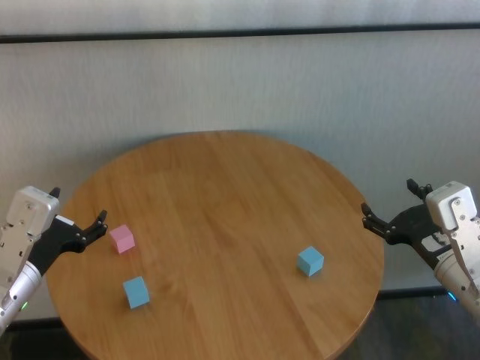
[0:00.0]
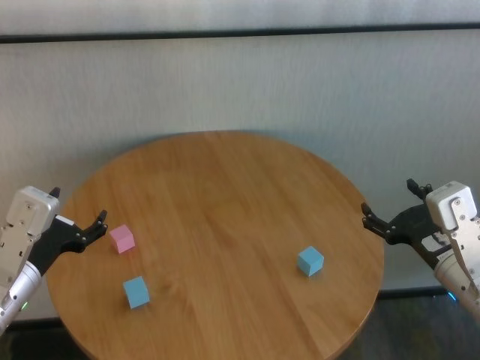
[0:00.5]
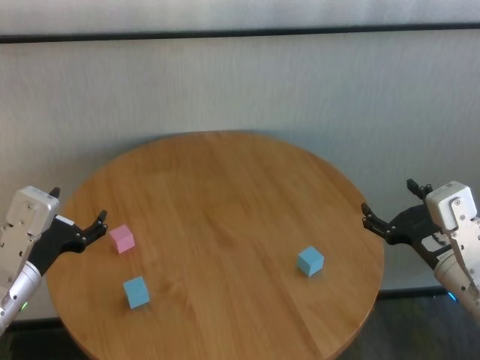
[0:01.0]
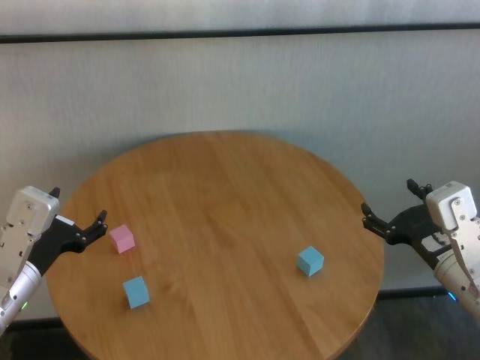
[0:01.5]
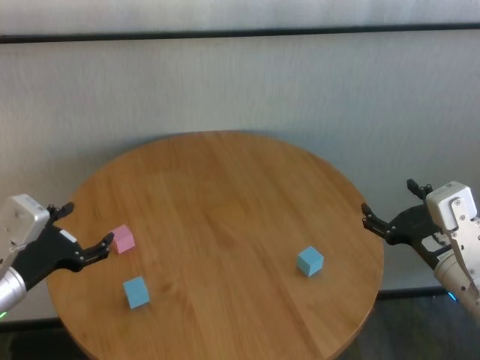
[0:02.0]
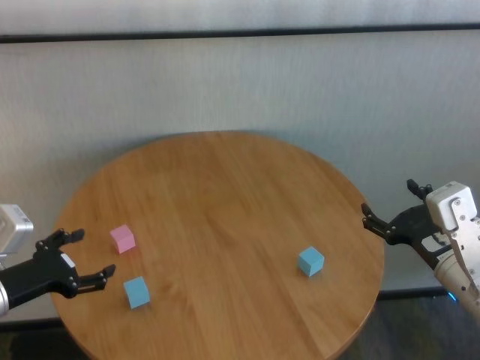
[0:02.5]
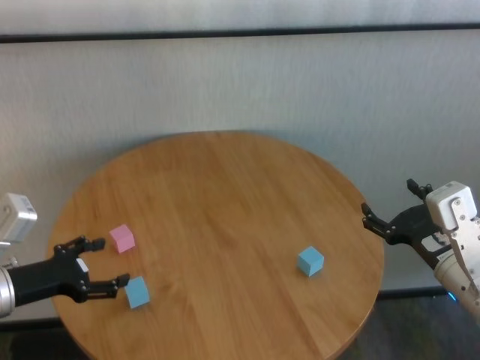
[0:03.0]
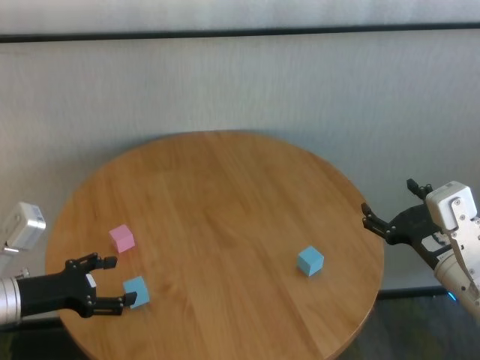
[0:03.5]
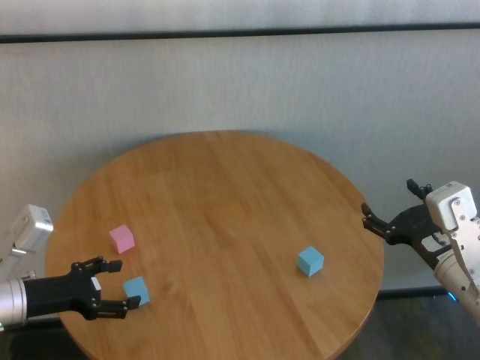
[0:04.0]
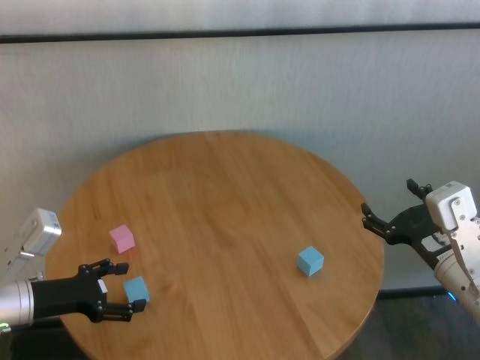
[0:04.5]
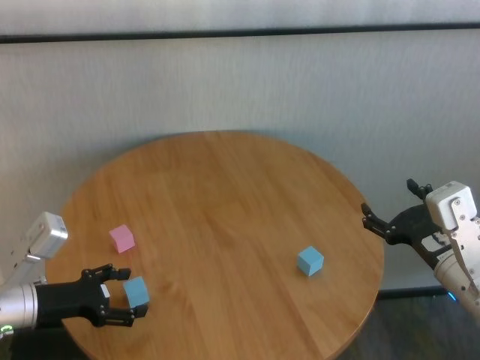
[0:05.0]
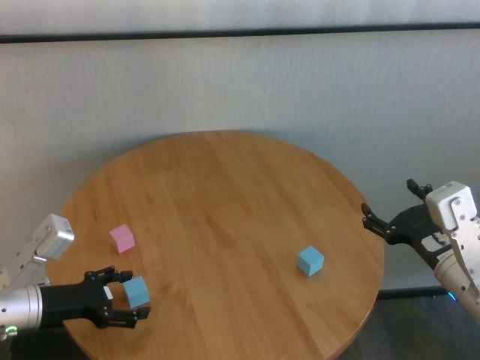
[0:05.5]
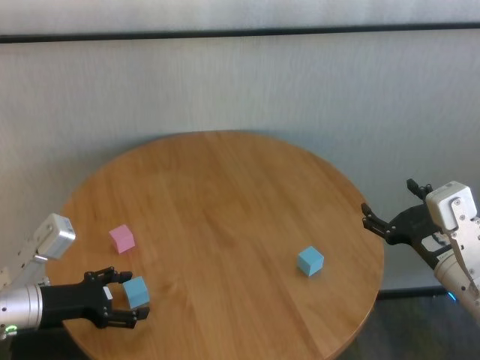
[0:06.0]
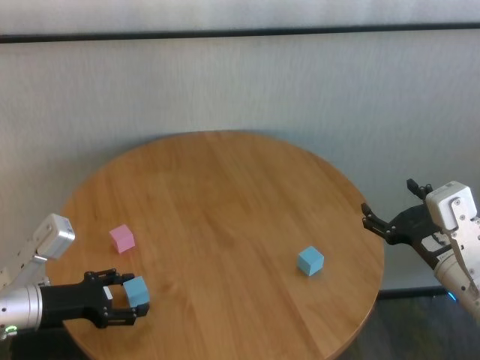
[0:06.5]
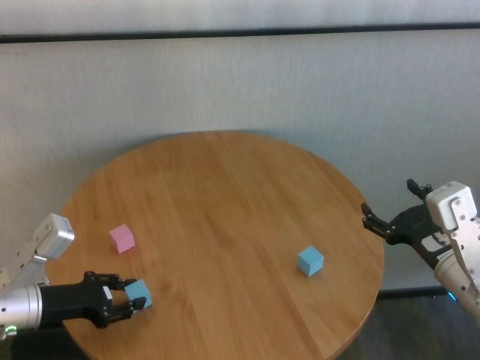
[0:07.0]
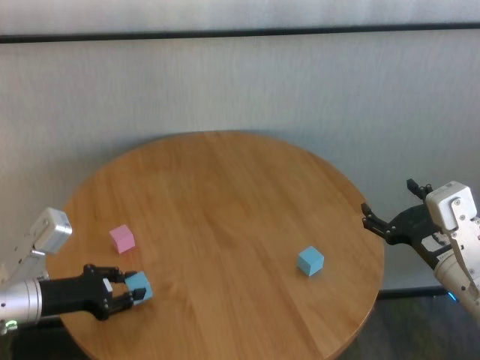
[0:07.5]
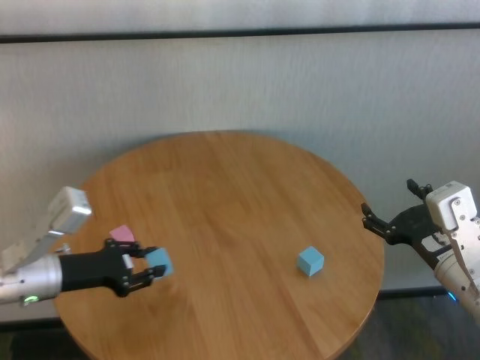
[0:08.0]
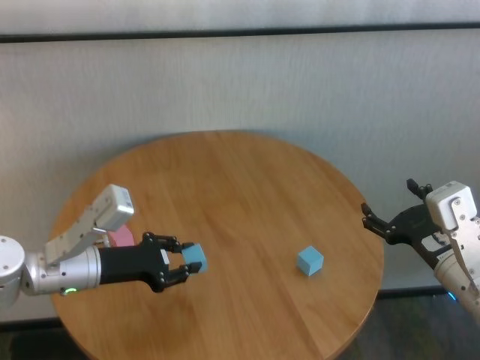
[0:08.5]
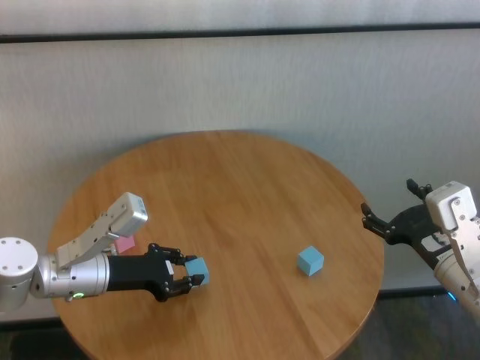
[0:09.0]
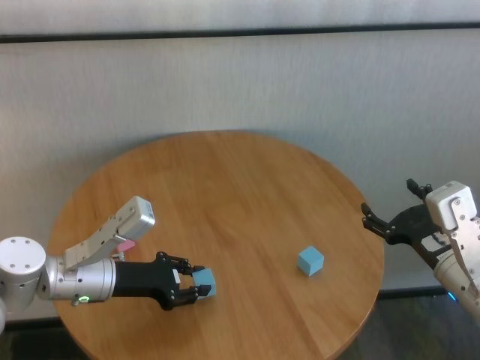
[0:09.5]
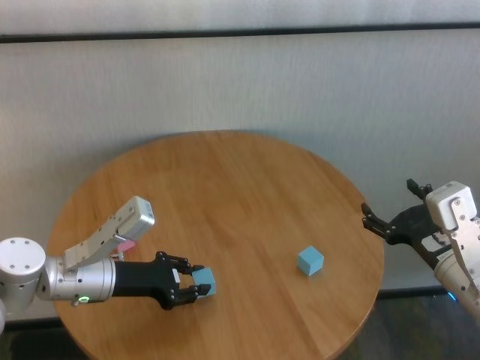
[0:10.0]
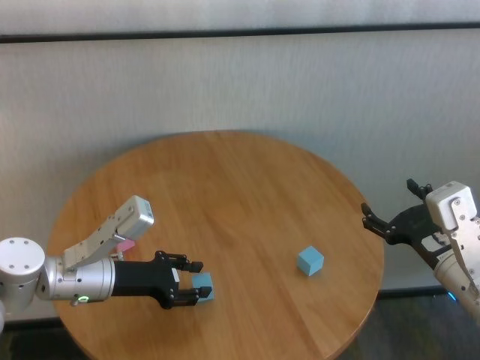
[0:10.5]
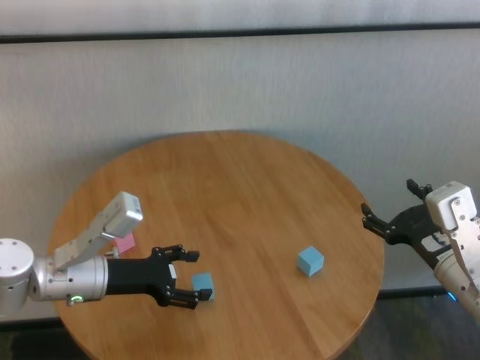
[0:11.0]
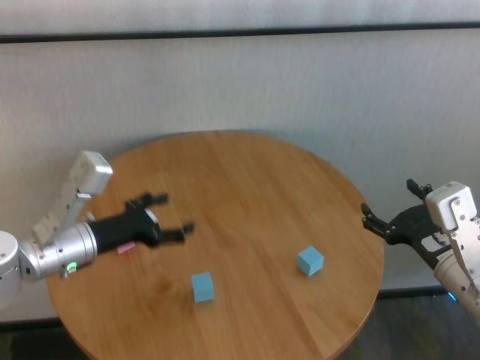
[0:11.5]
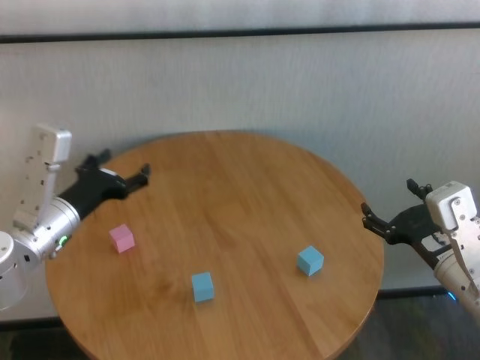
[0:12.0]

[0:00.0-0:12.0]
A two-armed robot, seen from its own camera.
Task of the whole recording: stack building blocks on the table.
Step, 0:00.0 to 0:07.0: Grasp the blue building block with left gripper.
Step, 0:07.5 to 0:10.5: Place the blue building block in the center of table with left gripper.

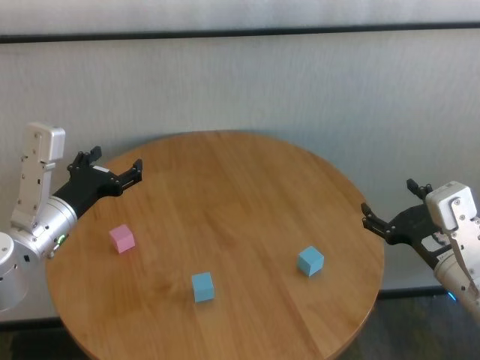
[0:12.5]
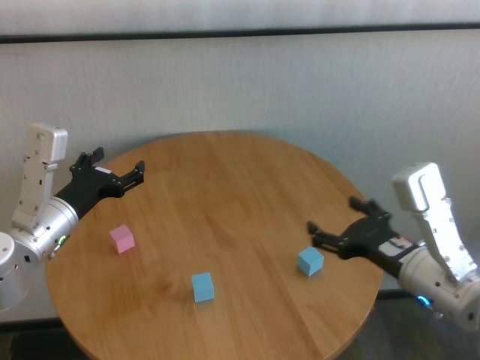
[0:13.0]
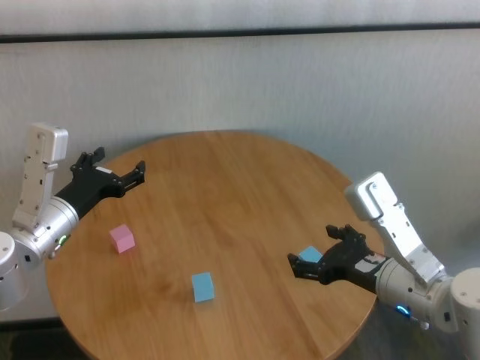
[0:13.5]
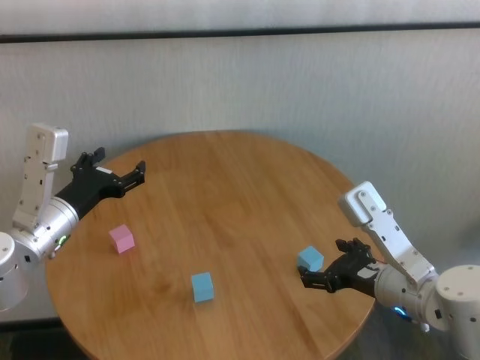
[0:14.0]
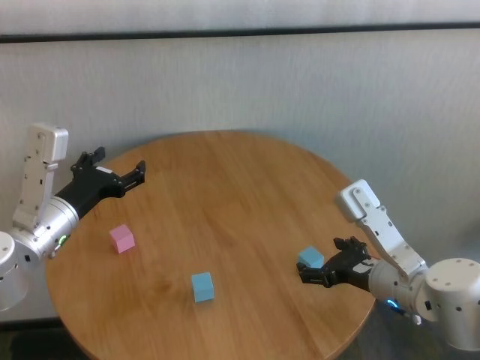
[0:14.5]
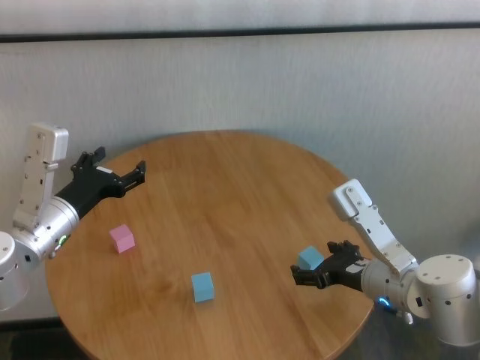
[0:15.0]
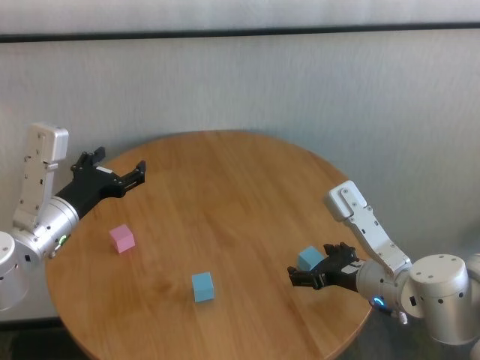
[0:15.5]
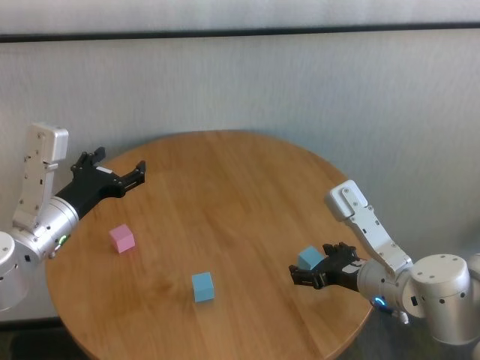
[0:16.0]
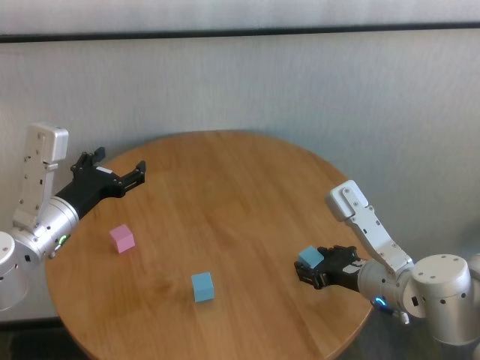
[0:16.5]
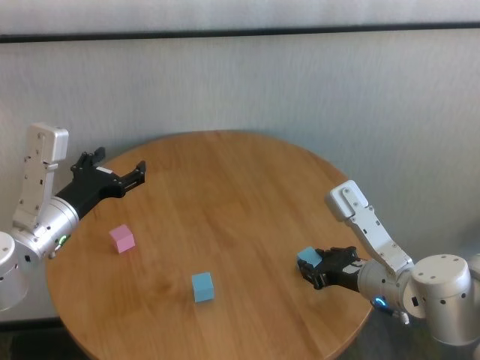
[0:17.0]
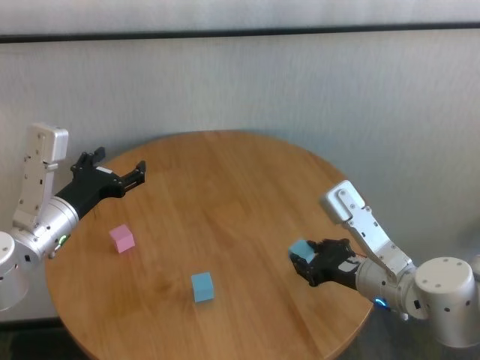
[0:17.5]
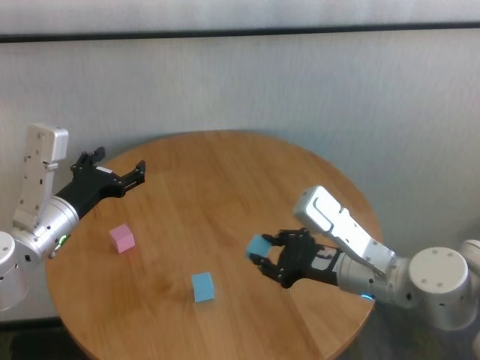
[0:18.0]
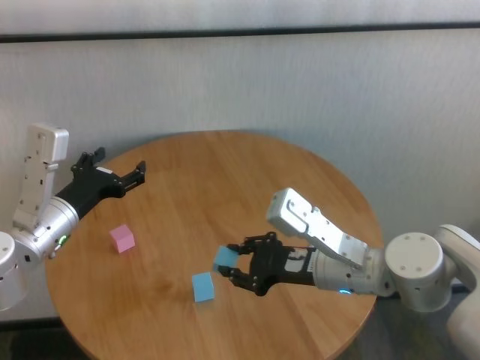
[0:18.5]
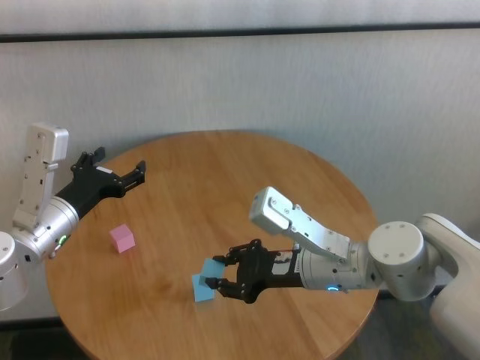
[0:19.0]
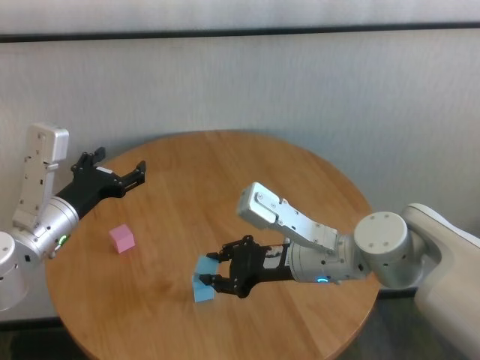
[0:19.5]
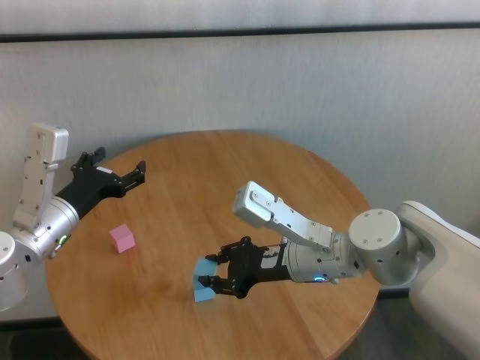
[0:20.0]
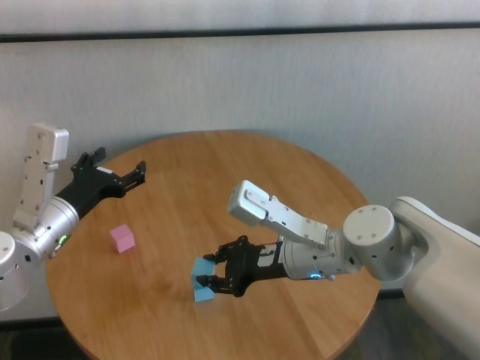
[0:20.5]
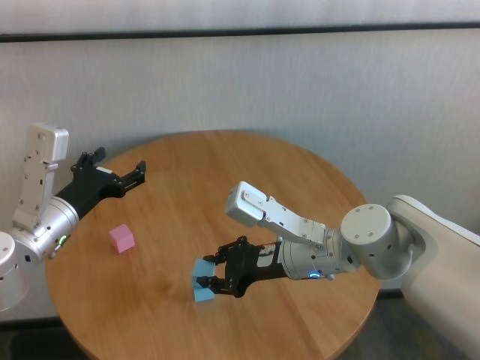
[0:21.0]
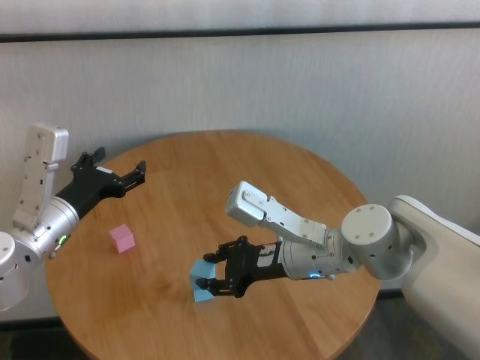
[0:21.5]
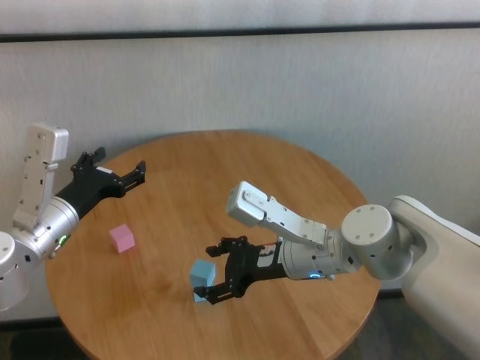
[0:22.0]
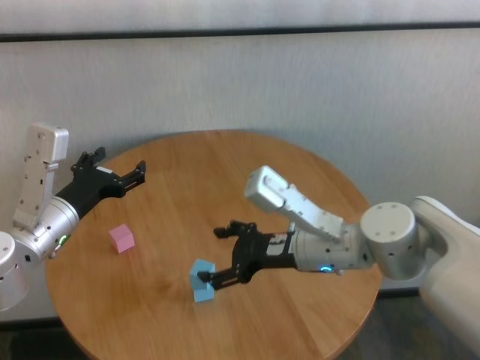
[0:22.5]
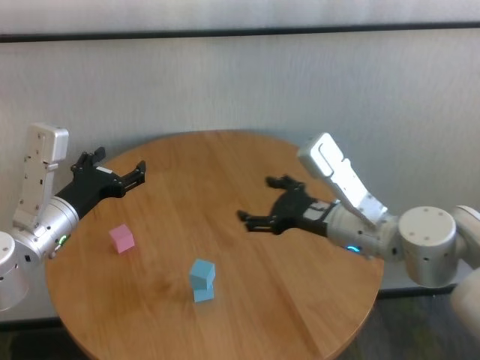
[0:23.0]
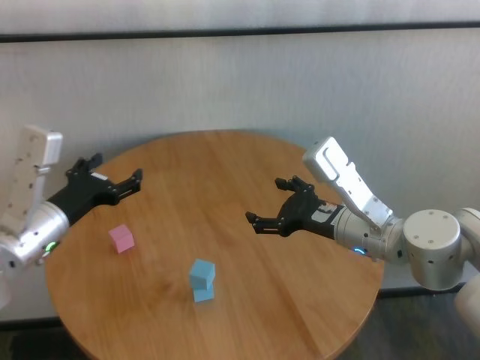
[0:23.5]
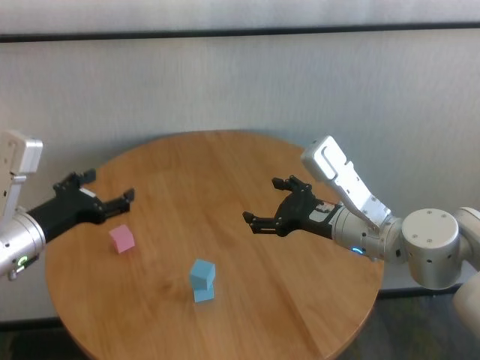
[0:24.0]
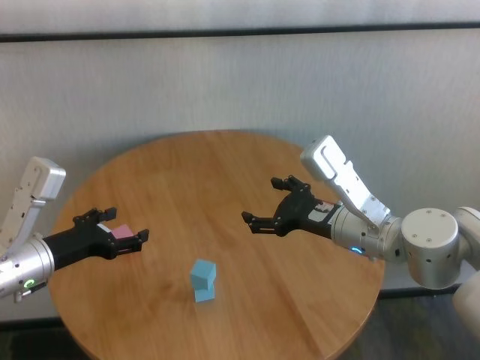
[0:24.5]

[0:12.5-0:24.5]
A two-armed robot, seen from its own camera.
Task of the whole recording: stack building blocks on the table.
Step, 0:12.5 to 0:16.5: Grasp the blue building block with right gripper.
Step, 0:17.0 to 0:21.5: Place the blue building block on the blue building blocks with right gripper.

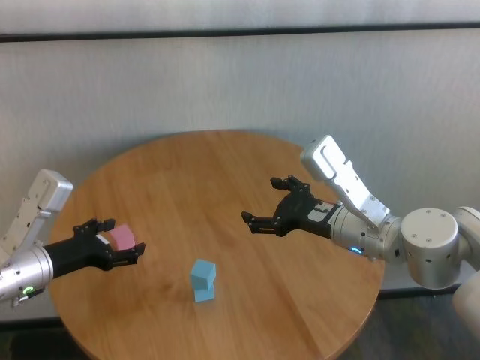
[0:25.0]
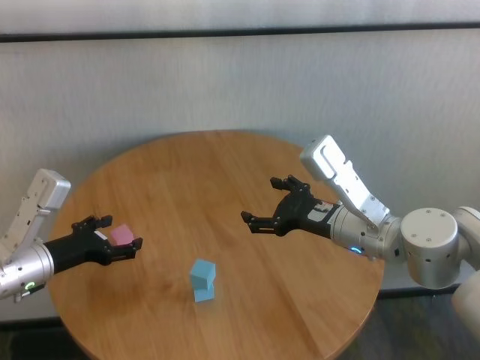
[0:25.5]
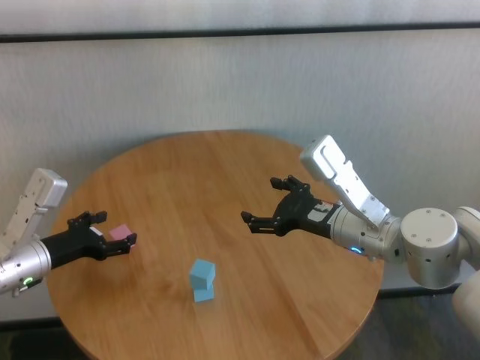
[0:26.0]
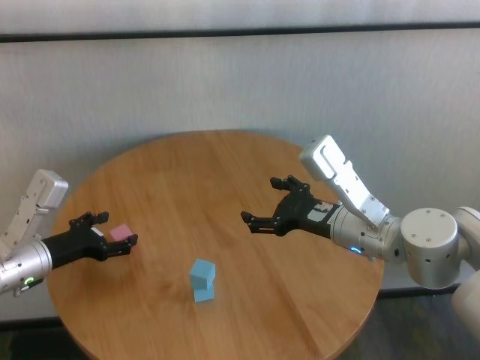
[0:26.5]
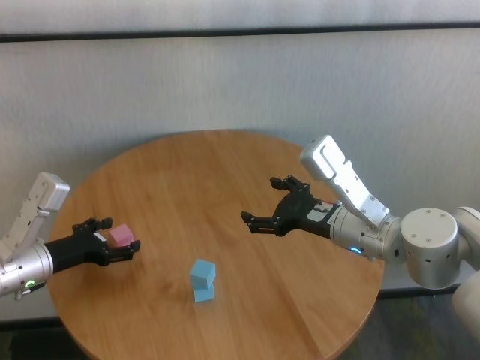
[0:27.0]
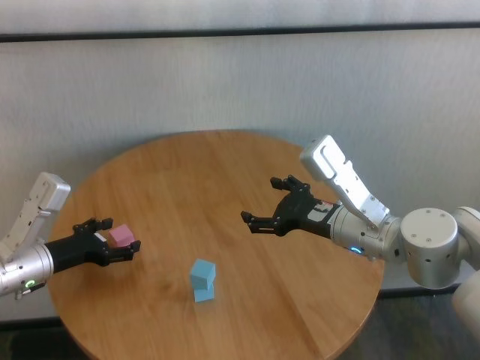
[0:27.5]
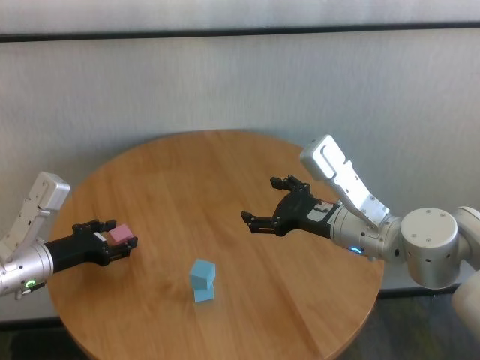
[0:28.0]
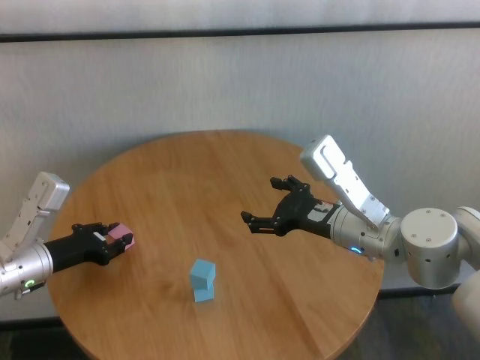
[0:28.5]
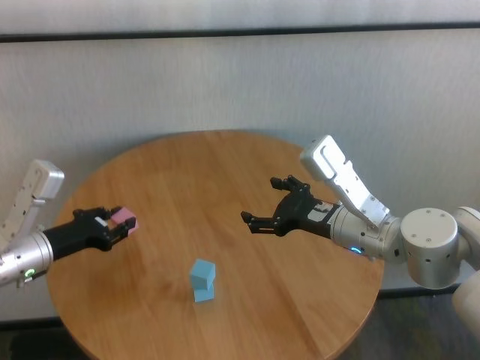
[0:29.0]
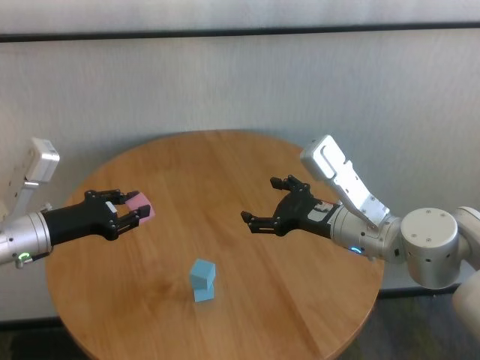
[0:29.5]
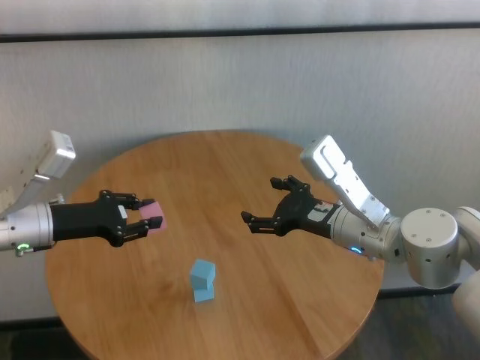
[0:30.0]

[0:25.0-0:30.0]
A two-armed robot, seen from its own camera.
Task of the whole recording: stack building blocks on the table.
Step, 0:25.0 to 0:28.0: Grasp the pink building block with left gripper.
